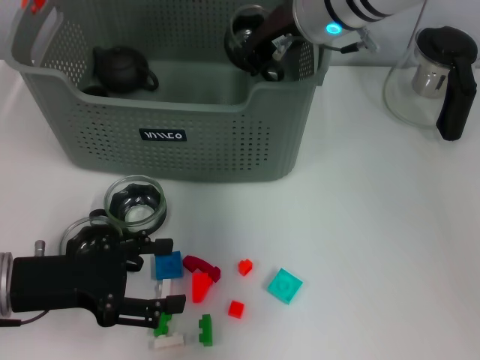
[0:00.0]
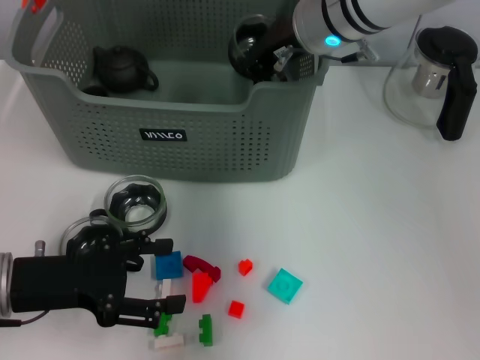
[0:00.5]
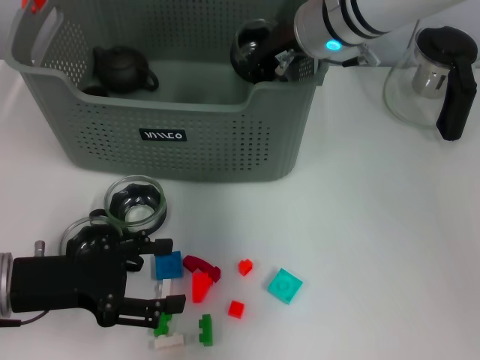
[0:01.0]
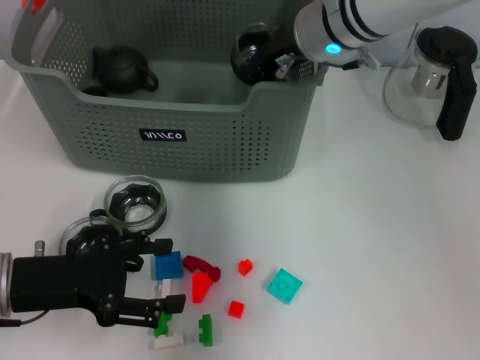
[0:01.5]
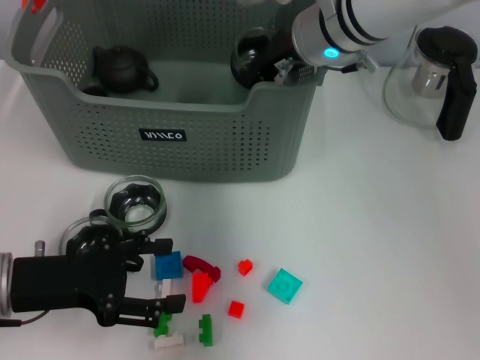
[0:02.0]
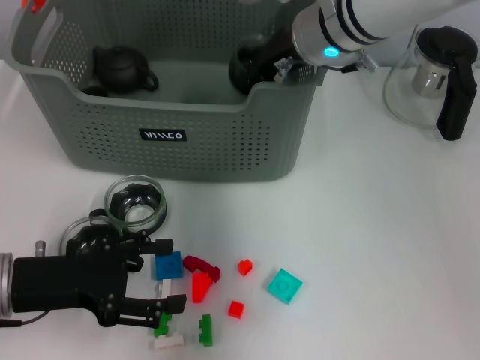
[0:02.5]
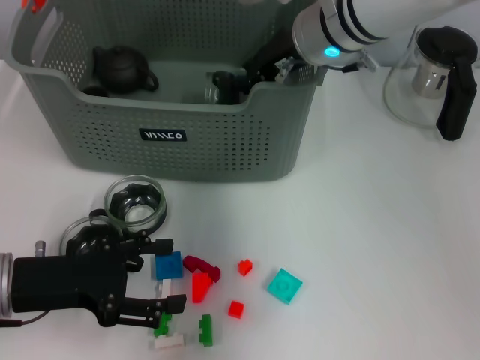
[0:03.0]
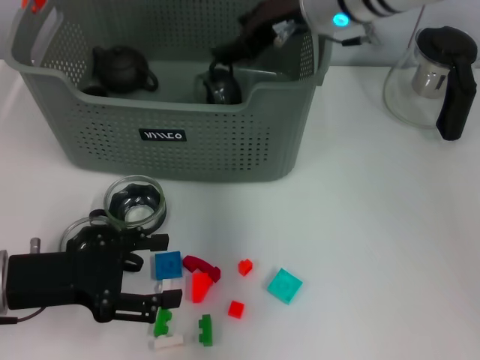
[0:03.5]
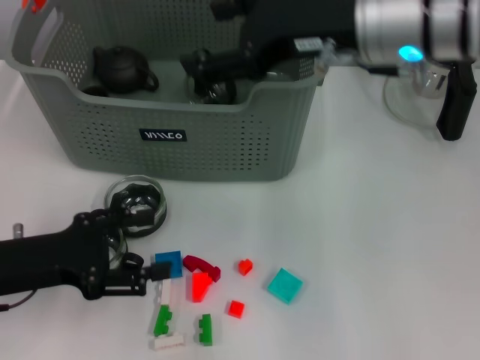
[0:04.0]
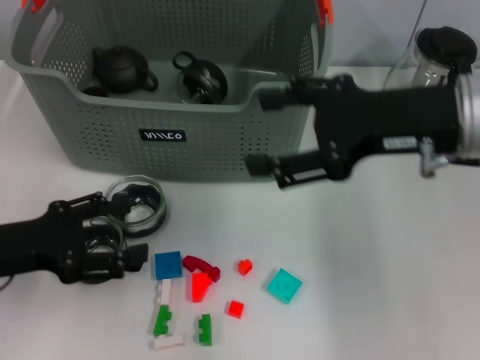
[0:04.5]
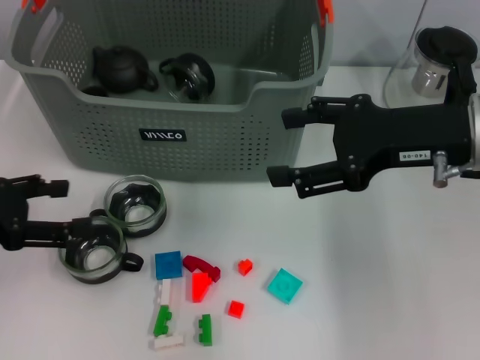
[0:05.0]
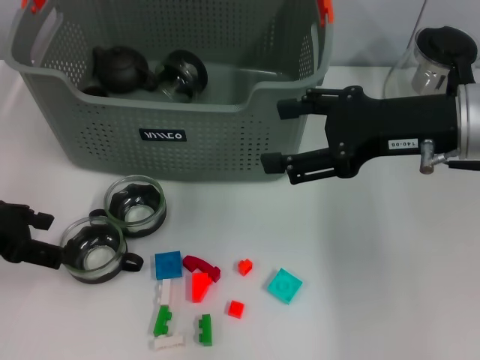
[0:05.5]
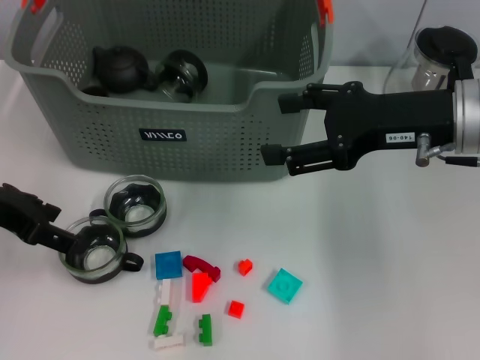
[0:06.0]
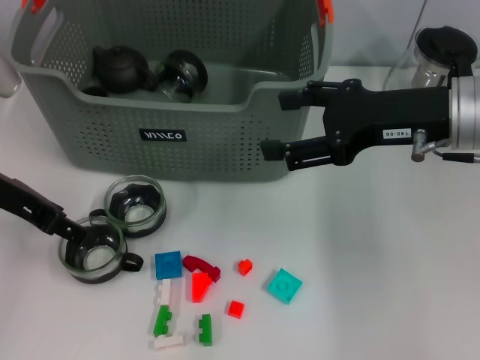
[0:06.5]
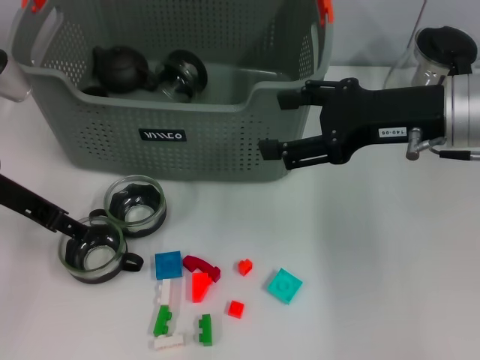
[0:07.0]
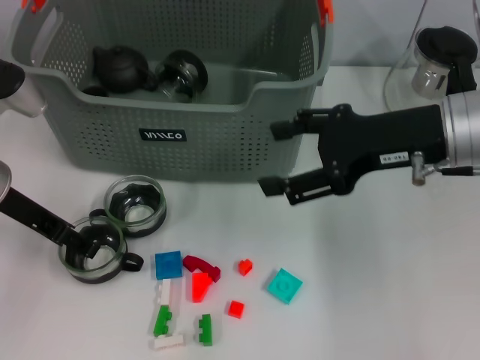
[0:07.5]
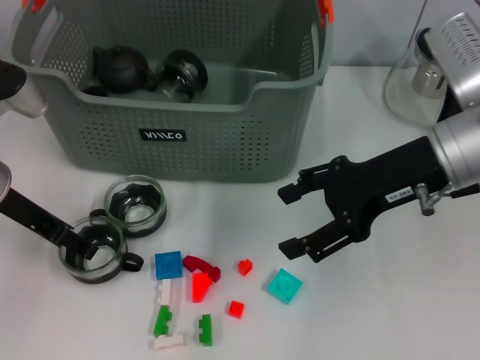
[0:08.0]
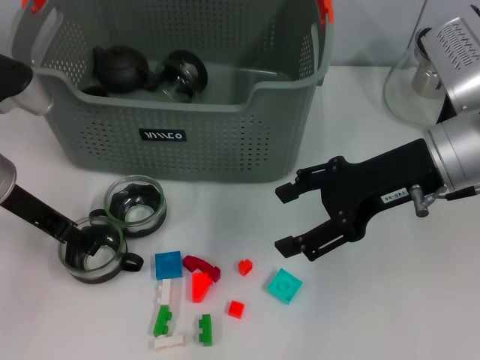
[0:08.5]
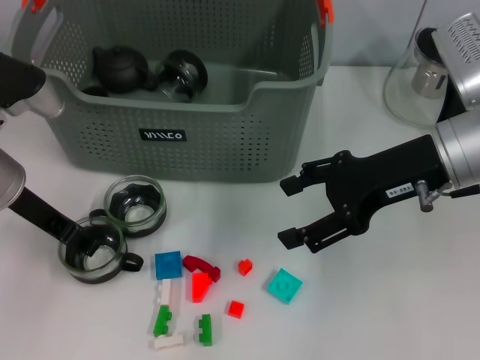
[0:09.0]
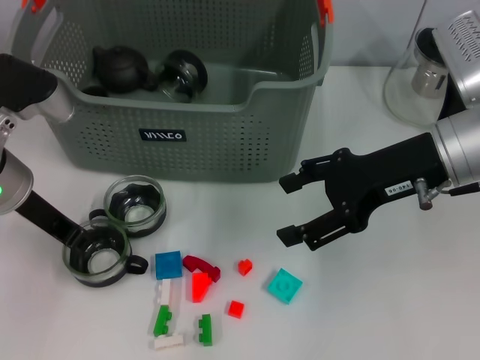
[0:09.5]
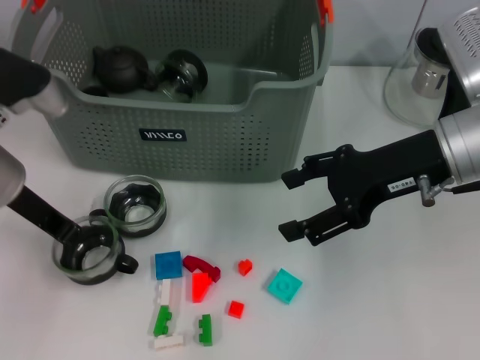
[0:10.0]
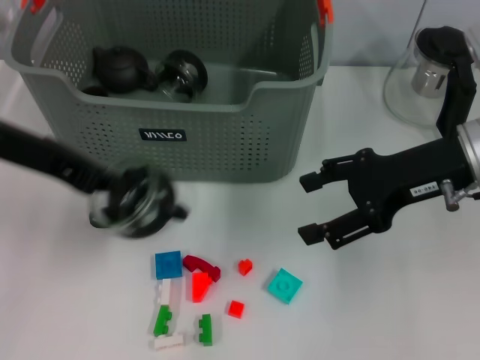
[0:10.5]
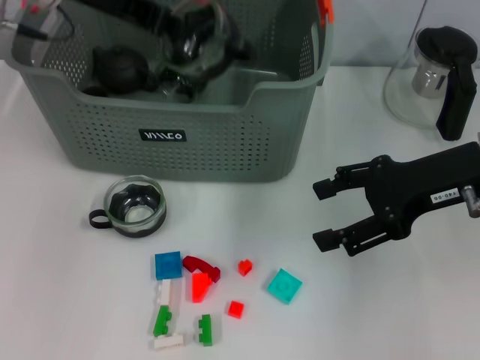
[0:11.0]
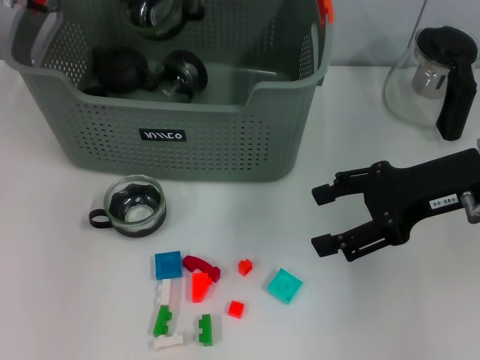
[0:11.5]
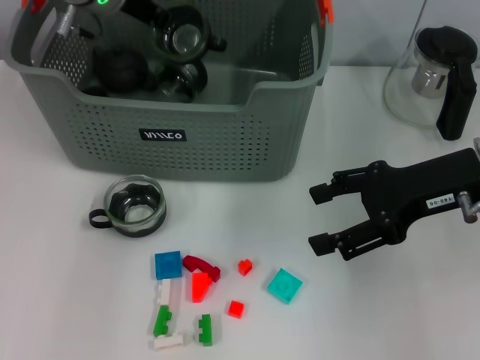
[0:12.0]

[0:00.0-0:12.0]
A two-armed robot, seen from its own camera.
Task of the whole recording: pick up the teacup on the table and place it into the storage bin, pick up the block on the table and place it into the storage bin.
Step, 0.0 to 2.5 s: Place the cup in the storage box with right gripper.
Step, 3.0 to 9.5 s: Grasp the cup with left gripper.
0.0 to 2.0 s: The grippers make only small movements.
2.0 to 4.0 s: The right gripper shifts about 10 cm backward and upward, and opens up.
4.0 to 6.0 s: The right gripper shifts some 10 cm to the right and downward, while the left gripper heads upward and forward, covering roughly 10 cm.
6.0 to 8.0 s: The left gripper changes place by about 5 cm.
8.0 to 10.0 s: The left gripper closes up.
10.0 to 12.0 s: The left gripper moves forward, to the right and upward, roughly 20 cm.

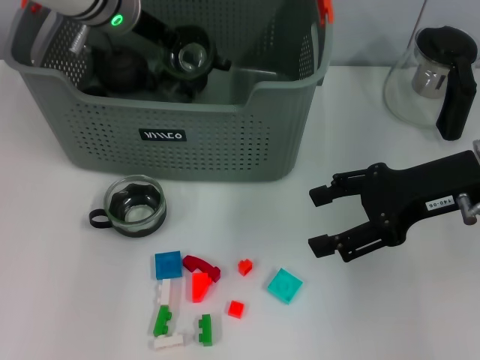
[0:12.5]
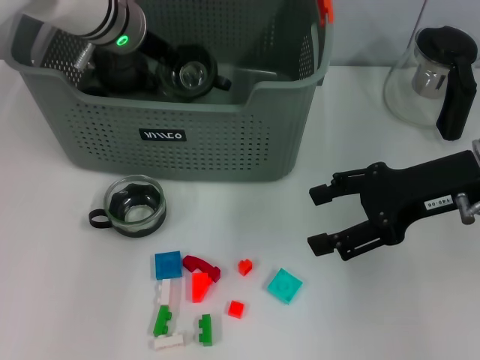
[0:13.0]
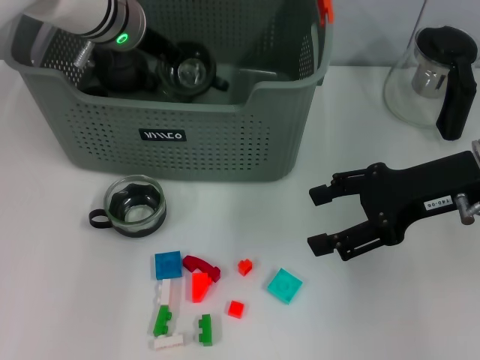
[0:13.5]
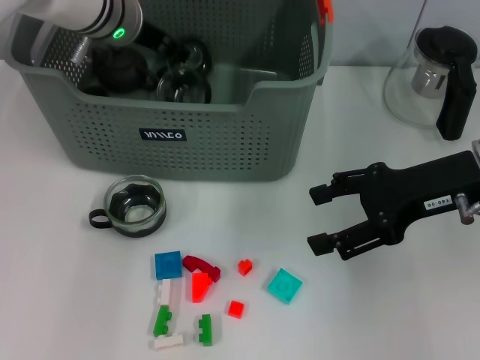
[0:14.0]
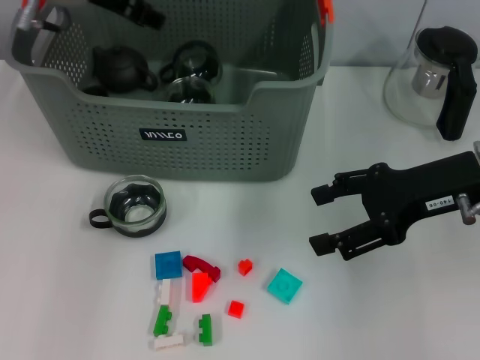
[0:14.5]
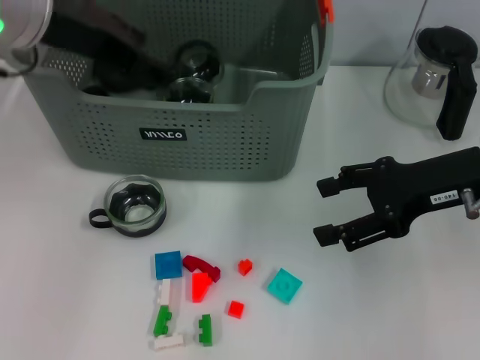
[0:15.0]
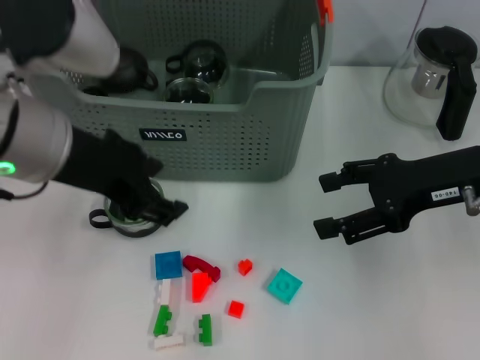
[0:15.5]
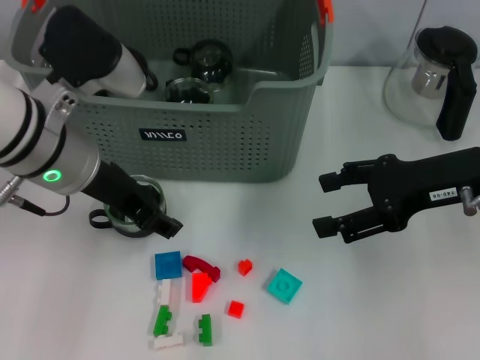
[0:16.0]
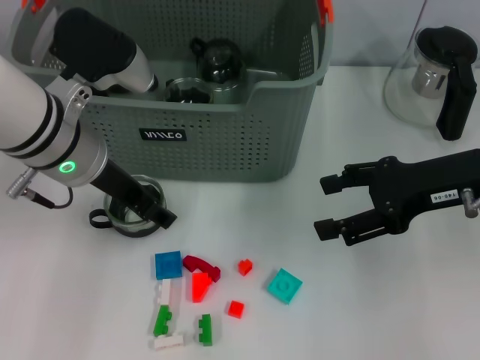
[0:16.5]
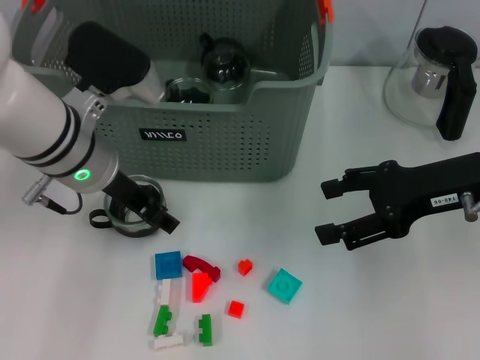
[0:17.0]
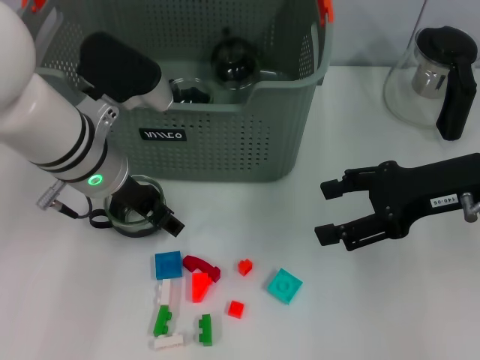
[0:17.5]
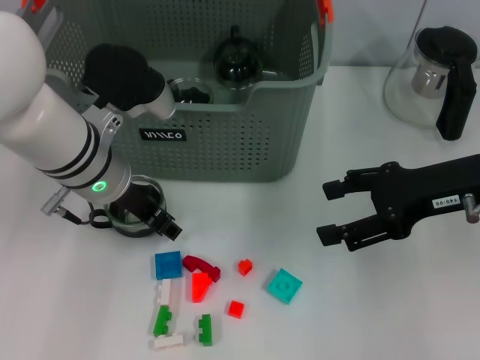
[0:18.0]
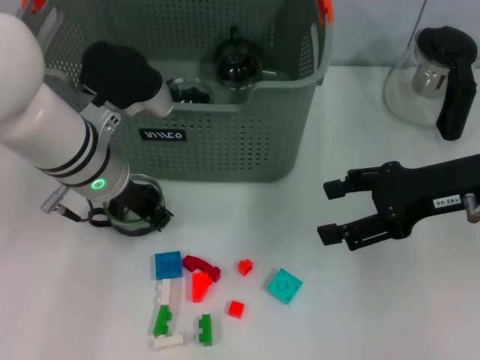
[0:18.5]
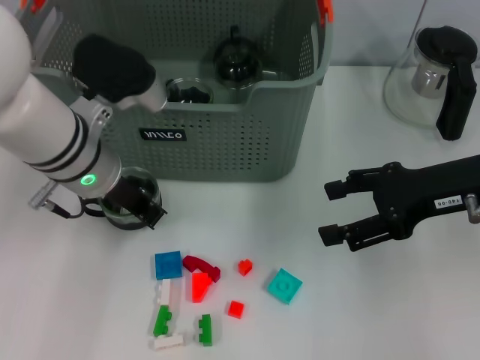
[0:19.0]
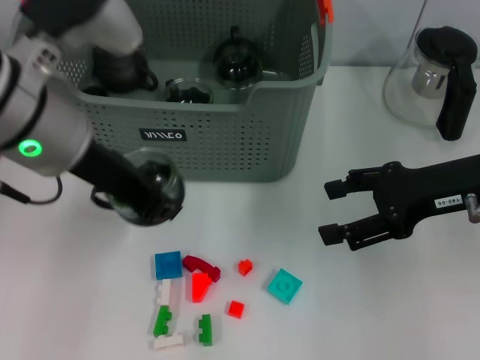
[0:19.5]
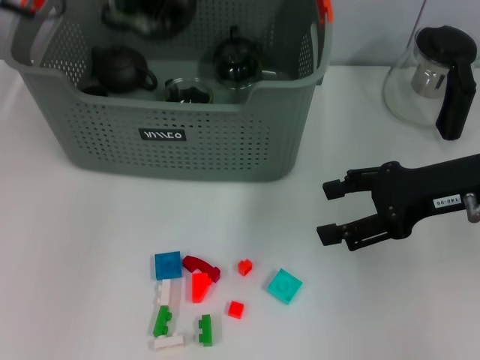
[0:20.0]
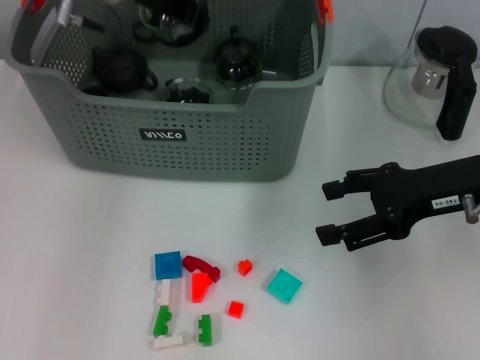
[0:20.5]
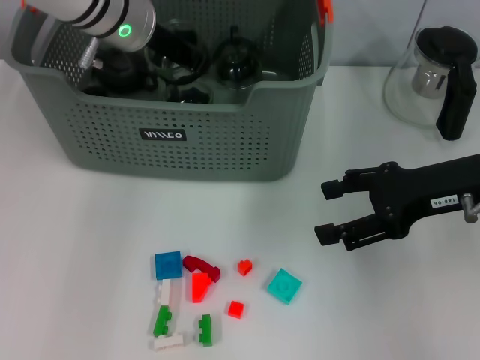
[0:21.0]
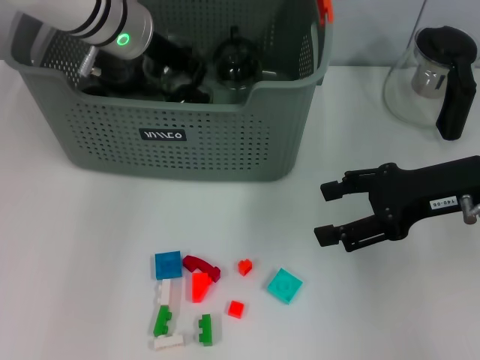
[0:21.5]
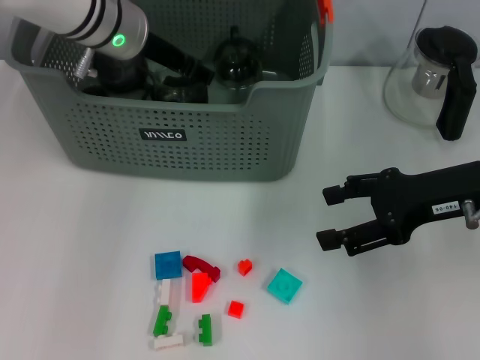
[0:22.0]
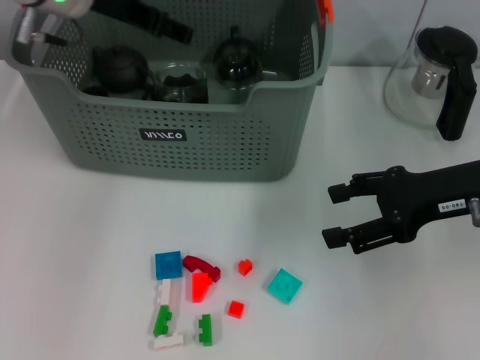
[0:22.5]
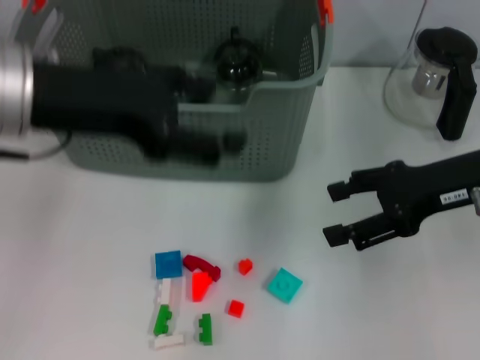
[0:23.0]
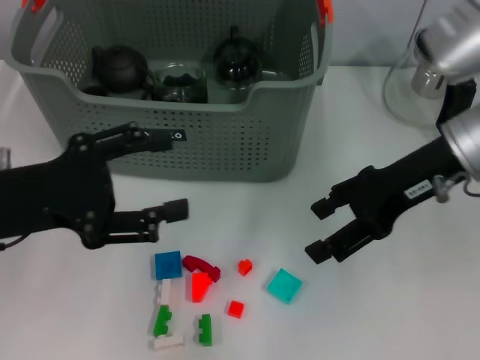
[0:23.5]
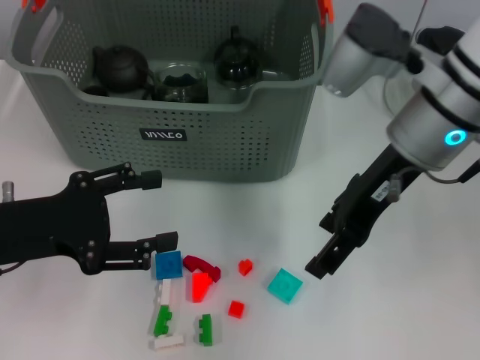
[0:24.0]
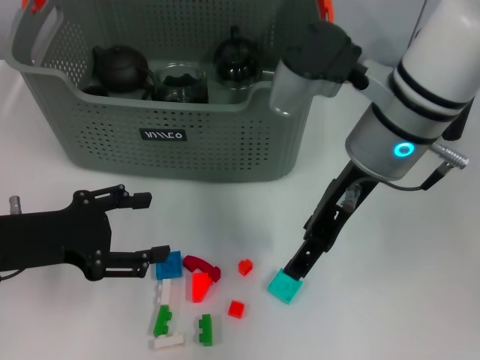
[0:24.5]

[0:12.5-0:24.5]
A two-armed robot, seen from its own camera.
Task of the whole recording: pick up the teacup on the table and place it into the storage bin, pick up the block on the table and place it into the storage bin.
Step, 14.0 to 18.5 s: Grasp the cup with left gripper.
Step, 19.0 to 21.5 s: Place the cup in the storage box with left gripper.
12.5 to 14.5 s: The left gripper moves upward, approximately 5 cm, and opens.
14.5 to 16.5 s: The left gripper travels backward and downward by about 15 cm.
16.5 to 18.5 s: The left gripper closes its fingers.
18.5 to 20.5 s: The left gripper travels upward and forward by some 15 cm.
20.5 to 22.5 s: The left gripper opens up.
22.5 to 24.5 s: The right gripper moves to the left, approximately 15 cm, while the left gripper heads backward, downward and to the left, covering about 25 cm.

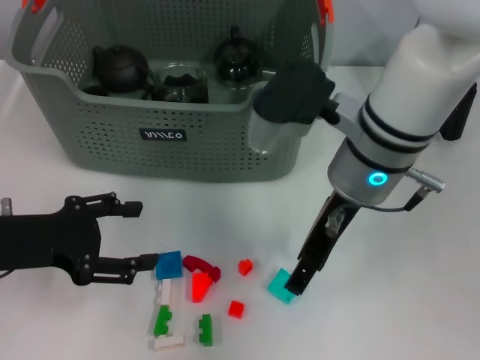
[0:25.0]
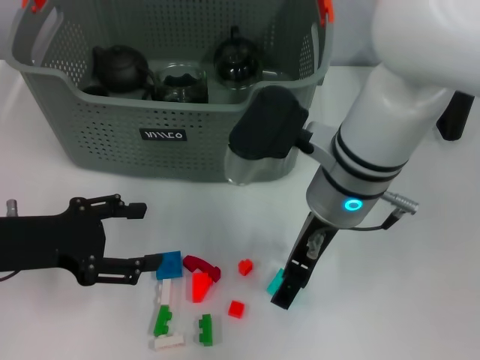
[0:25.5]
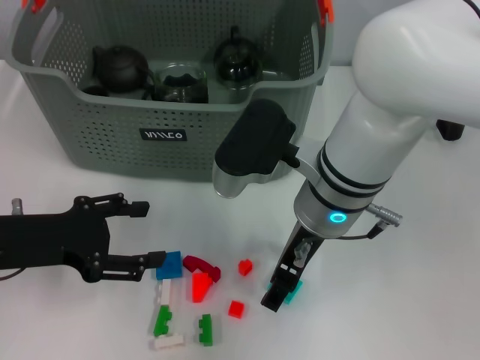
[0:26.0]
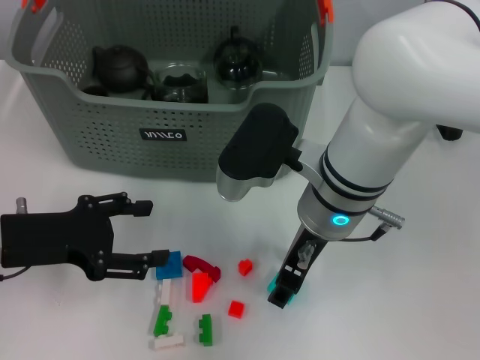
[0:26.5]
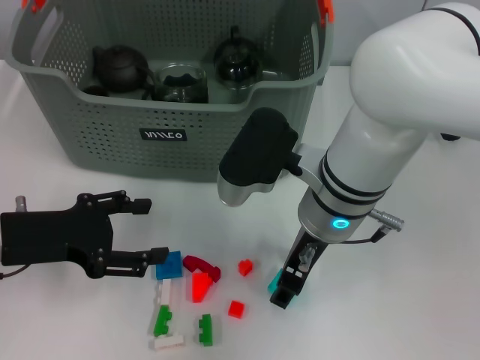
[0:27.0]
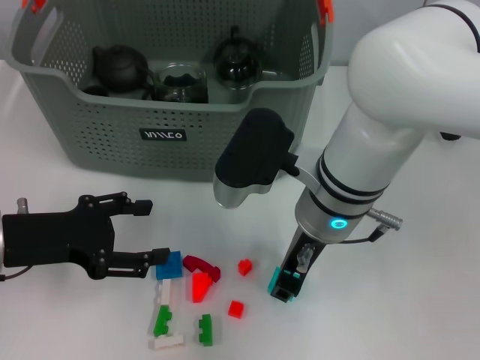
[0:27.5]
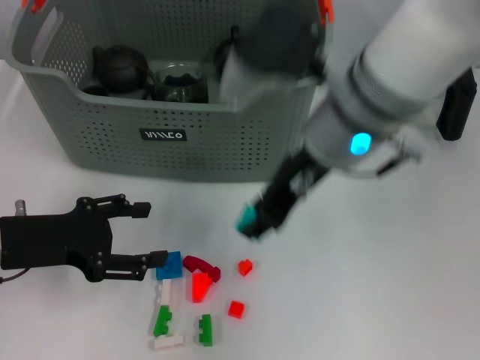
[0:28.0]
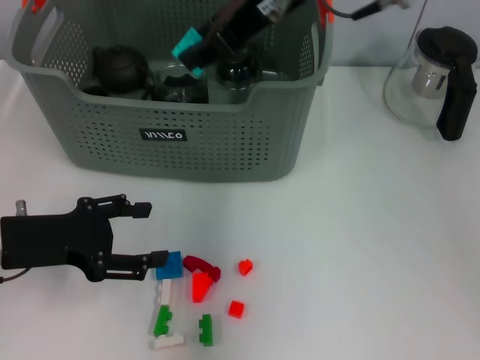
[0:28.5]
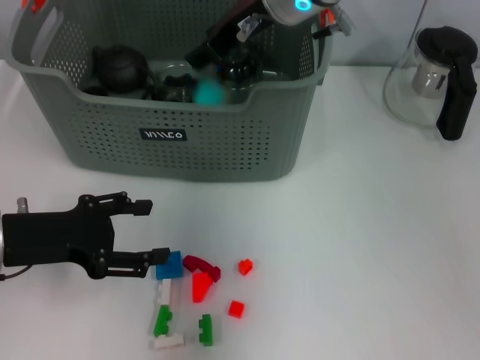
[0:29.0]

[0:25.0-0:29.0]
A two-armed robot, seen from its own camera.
Task of the whole recording: pick up the teacup on the table and place it into the storage bin, pick up the block on the table and place it into the storage bin.
Step, 25.0 to 27.0 s: Grasp the light blue block with right gripper.
25.0 to 27.0 s: The right gripper changes place by some 5 cm.
27.0 to 29.0 s: The right gripper travels upward and forward by roughly 15 cm.
